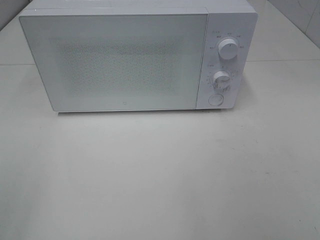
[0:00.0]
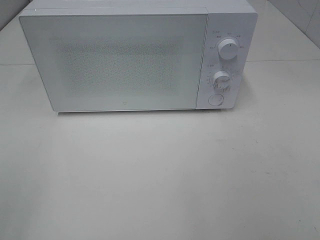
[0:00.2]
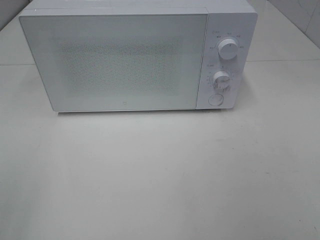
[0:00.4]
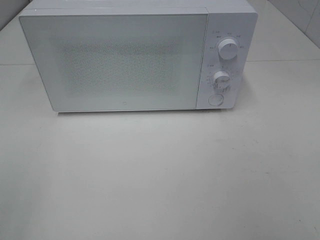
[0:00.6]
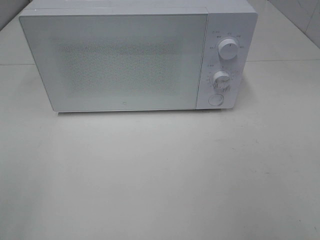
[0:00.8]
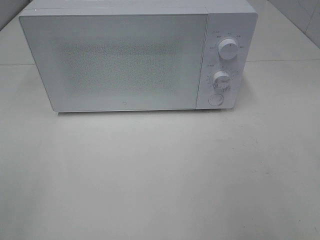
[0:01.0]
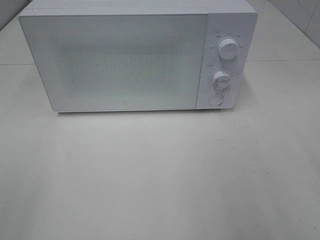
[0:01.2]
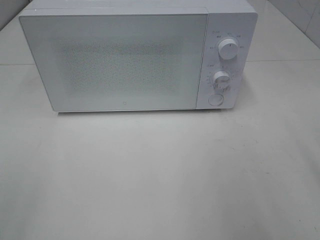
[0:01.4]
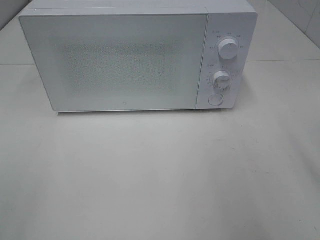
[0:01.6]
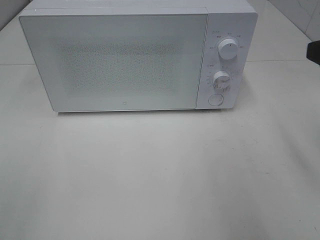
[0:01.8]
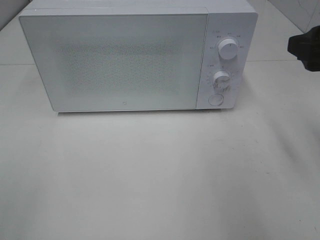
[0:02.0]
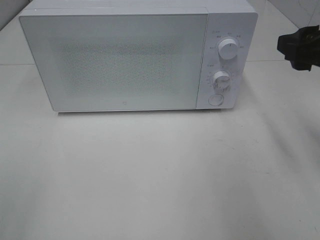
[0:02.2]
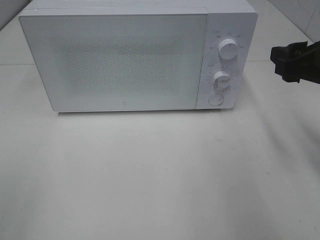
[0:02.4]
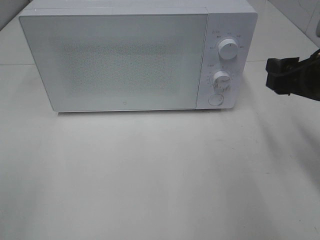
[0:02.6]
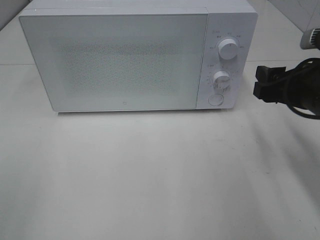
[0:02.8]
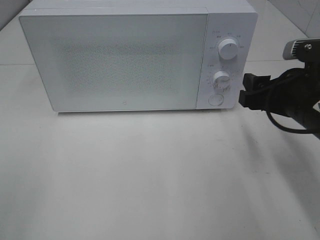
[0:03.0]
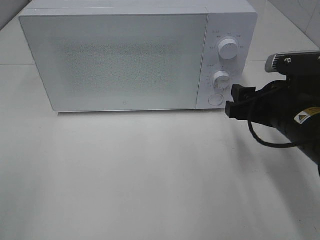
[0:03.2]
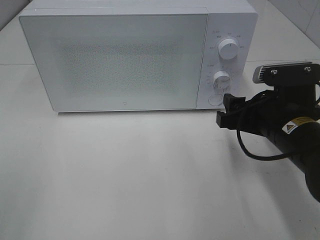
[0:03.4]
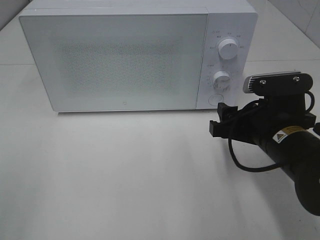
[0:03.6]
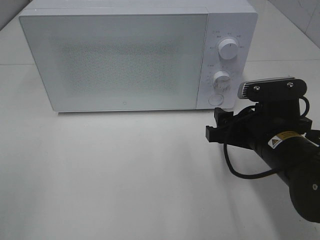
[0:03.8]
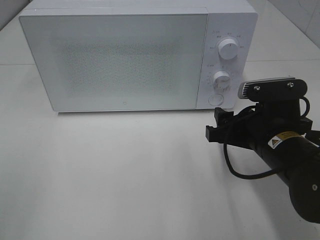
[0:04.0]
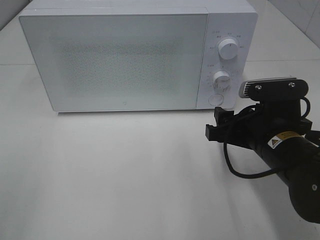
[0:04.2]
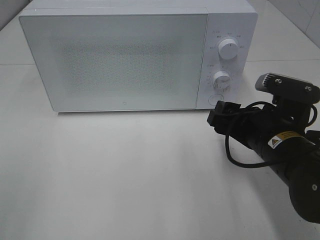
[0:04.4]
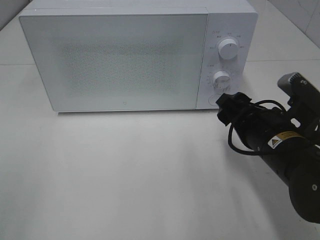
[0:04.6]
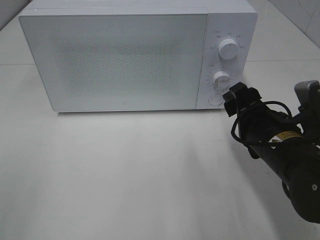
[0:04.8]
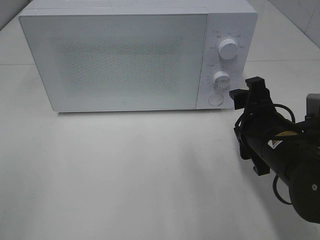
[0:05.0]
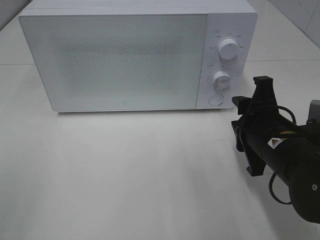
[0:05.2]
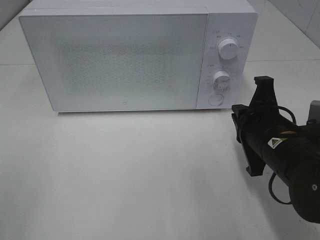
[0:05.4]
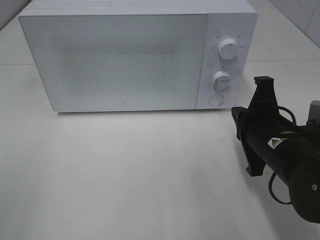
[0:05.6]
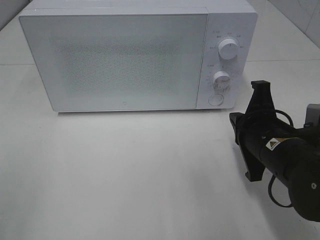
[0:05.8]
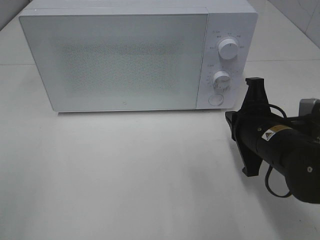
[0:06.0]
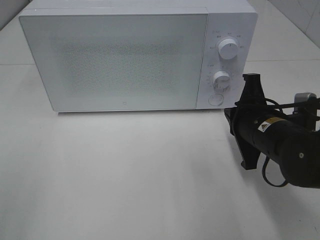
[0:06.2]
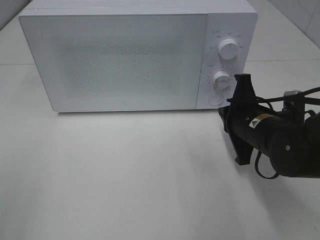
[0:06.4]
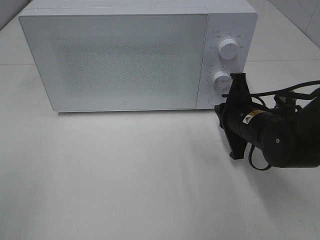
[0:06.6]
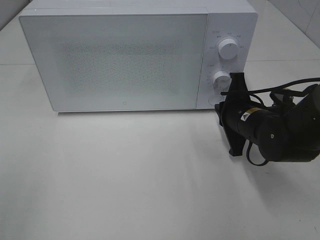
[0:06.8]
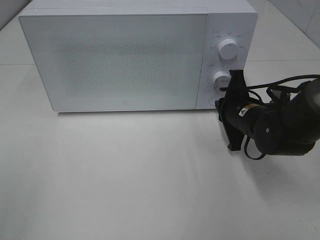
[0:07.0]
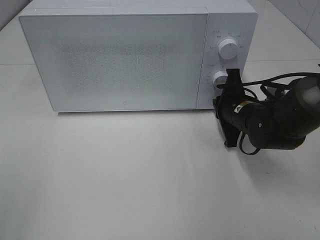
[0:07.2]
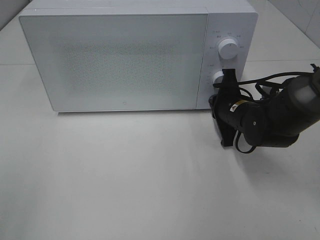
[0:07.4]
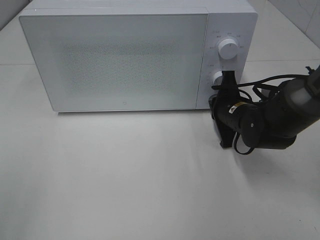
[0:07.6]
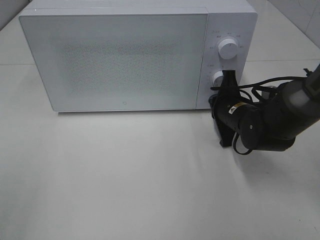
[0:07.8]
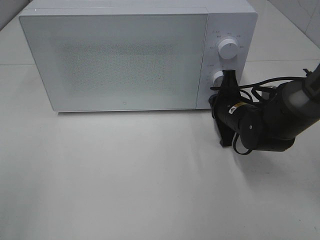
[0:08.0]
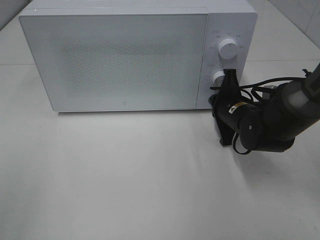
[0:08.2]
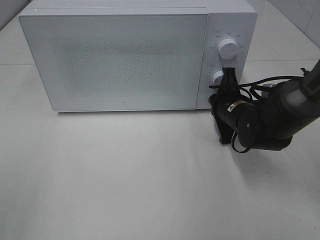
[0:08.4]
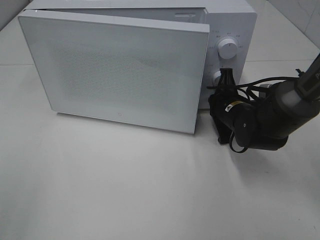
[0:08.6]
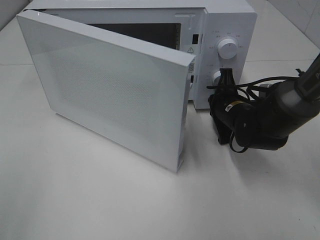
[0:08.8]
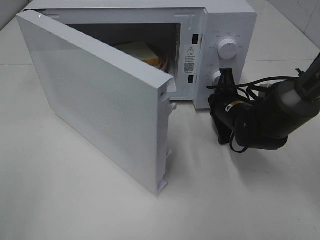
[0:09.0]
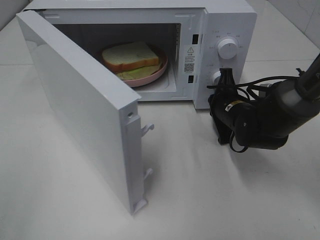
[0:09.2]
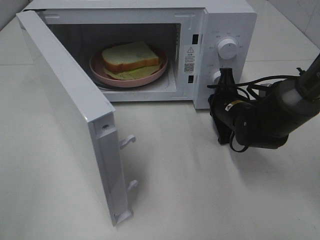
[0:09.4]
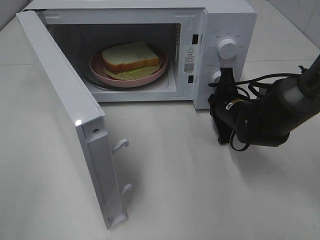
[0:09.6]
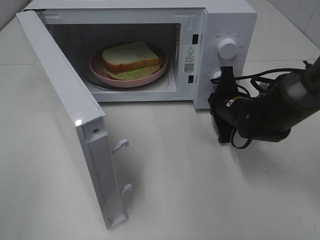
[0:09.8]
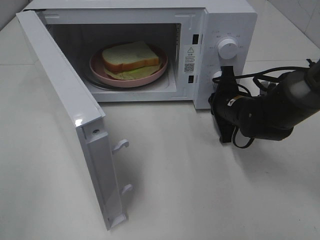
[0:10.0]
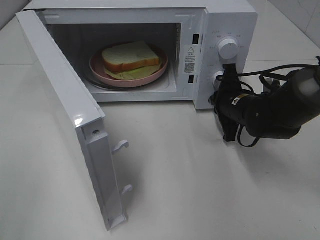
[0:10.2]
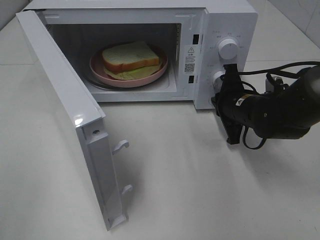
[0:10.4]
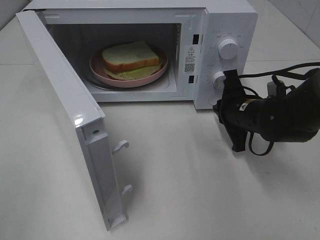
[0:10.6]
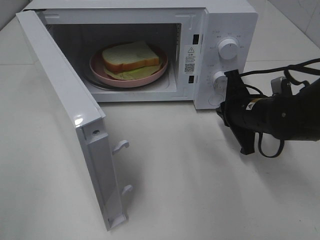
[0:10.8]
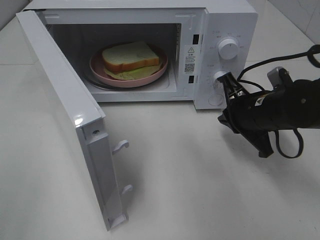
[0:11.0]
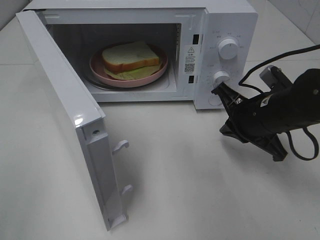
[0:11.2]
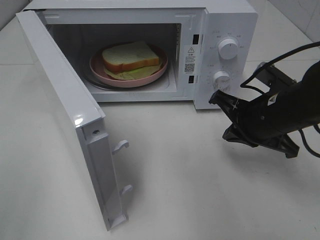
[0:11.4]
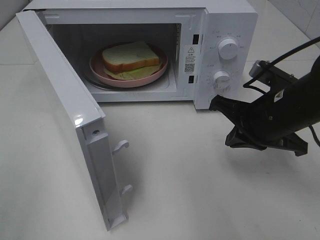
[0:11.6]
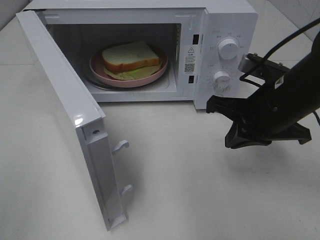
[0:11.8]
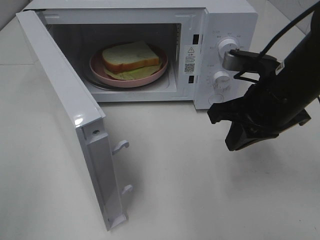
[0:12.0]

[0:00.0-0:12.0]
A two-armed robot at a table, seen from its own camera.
Task of the whole recording: Heat Sandwich.
Step, 0:00.0 to 0:10.8: Right hand: press the switch.
0:01.6 to 0:03.0: The right gripper travels downward, forward and to the left by roughly 15 cm.
0:03.0 to 0:04.4: The right gripper changes place by approximately 5 cm.
0:04.4 to 0:06.0: The right gripper closes its fingers.
0:06.0 to 0:07.6: The right gripper goes roughly 15 cm forward and downward.
0:10.4 to 0:12.0: The right gripper travels upward and backward by roughly 15 cm.

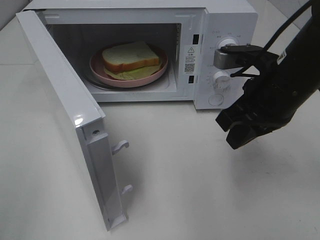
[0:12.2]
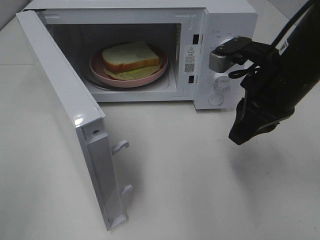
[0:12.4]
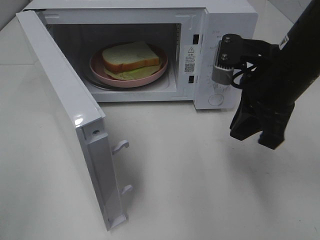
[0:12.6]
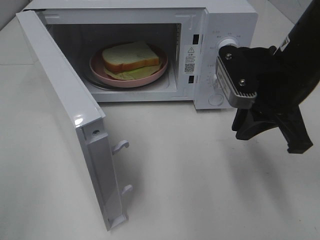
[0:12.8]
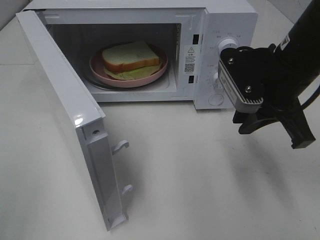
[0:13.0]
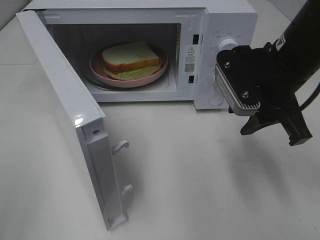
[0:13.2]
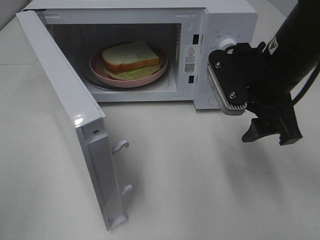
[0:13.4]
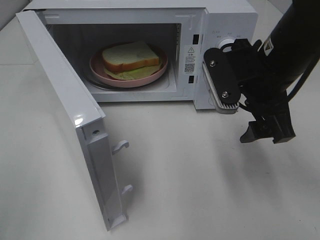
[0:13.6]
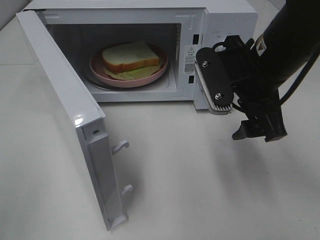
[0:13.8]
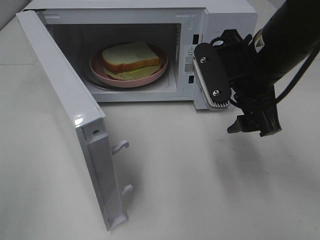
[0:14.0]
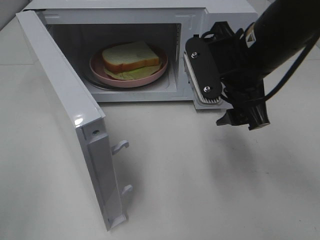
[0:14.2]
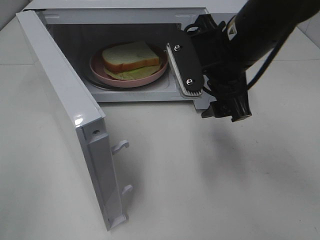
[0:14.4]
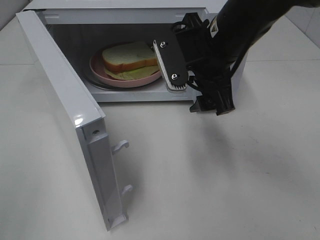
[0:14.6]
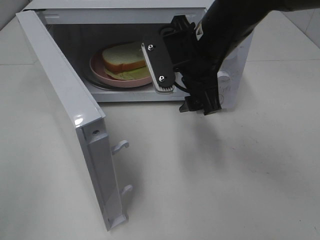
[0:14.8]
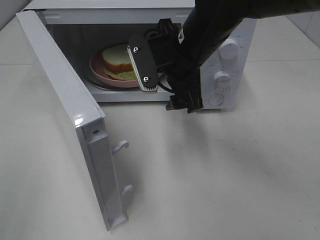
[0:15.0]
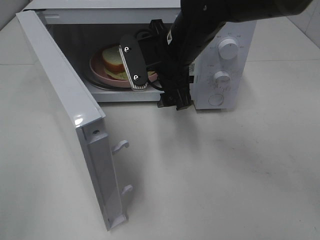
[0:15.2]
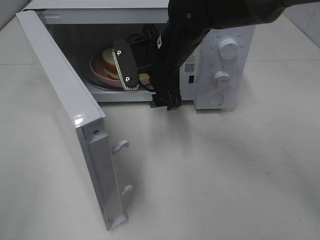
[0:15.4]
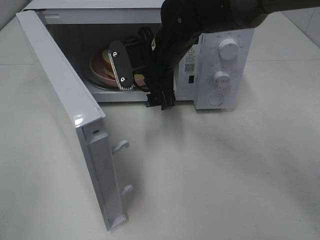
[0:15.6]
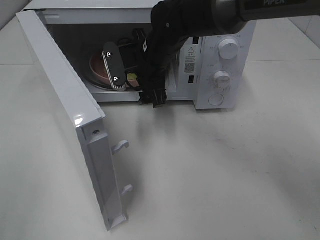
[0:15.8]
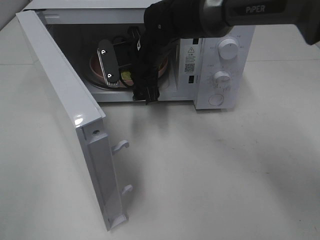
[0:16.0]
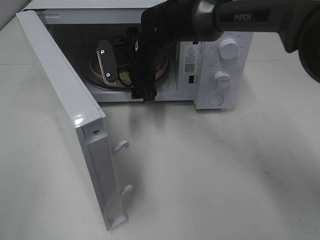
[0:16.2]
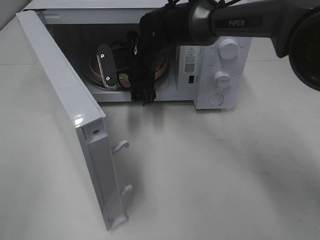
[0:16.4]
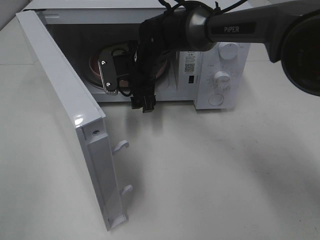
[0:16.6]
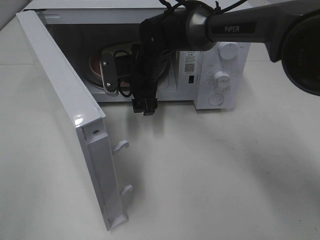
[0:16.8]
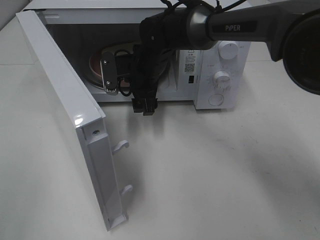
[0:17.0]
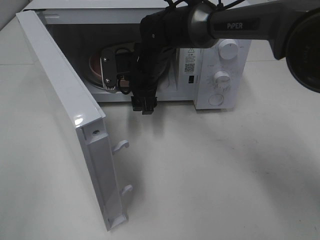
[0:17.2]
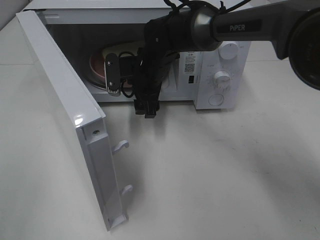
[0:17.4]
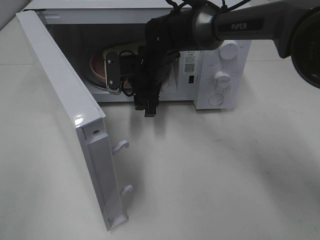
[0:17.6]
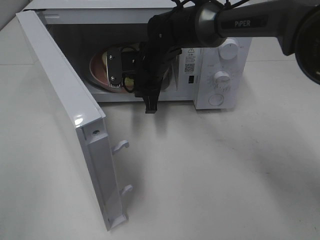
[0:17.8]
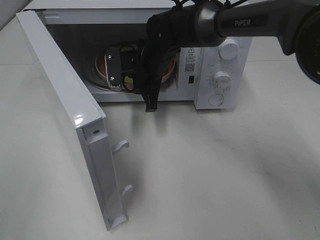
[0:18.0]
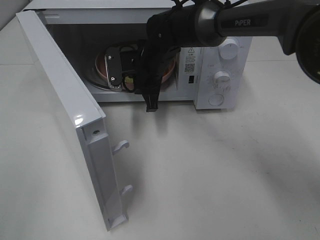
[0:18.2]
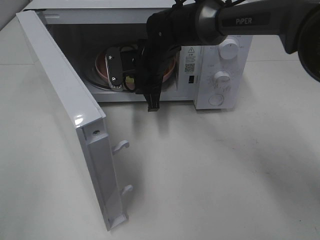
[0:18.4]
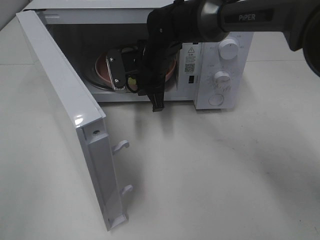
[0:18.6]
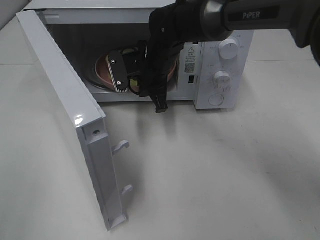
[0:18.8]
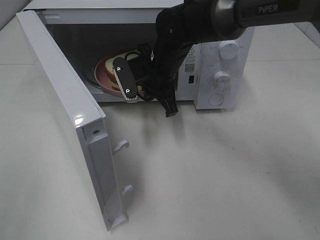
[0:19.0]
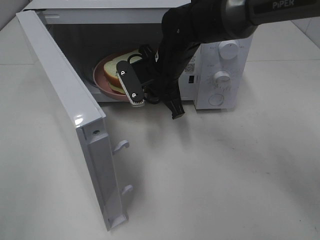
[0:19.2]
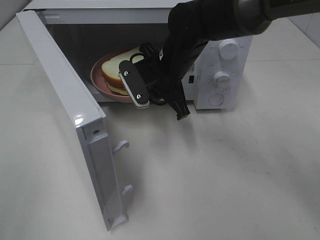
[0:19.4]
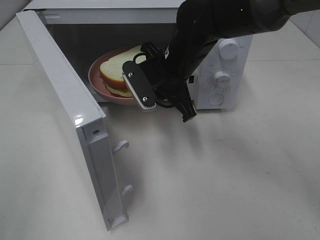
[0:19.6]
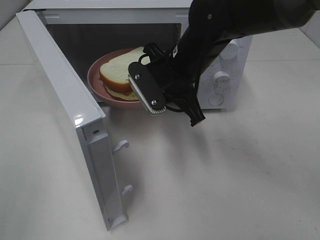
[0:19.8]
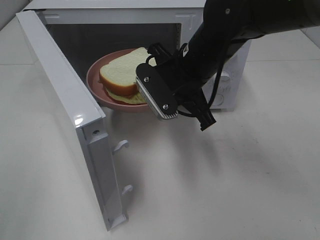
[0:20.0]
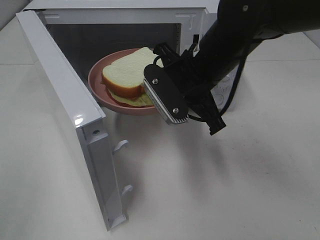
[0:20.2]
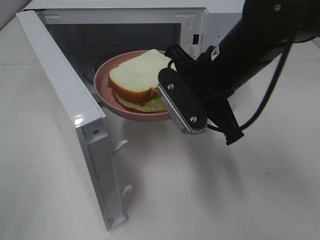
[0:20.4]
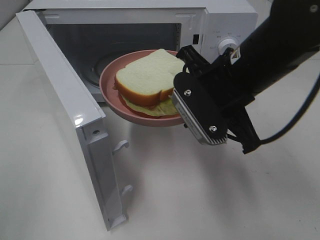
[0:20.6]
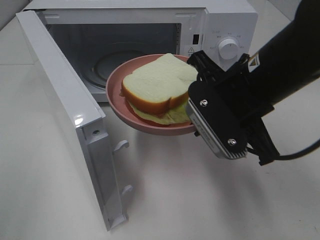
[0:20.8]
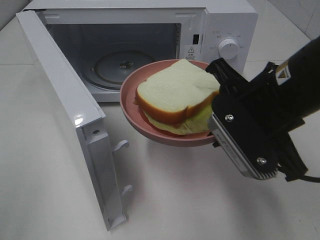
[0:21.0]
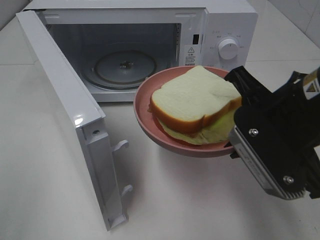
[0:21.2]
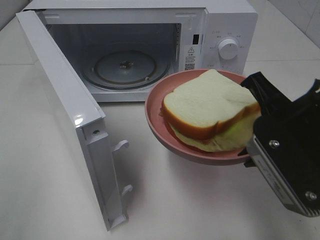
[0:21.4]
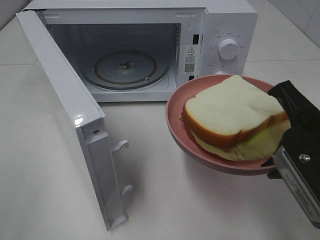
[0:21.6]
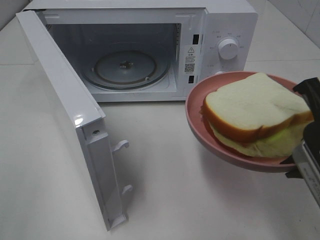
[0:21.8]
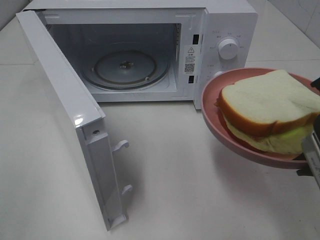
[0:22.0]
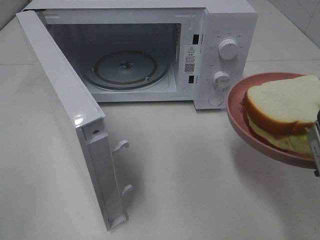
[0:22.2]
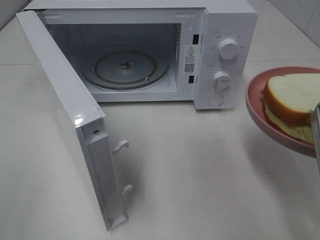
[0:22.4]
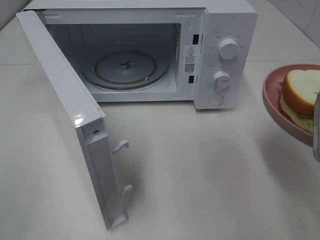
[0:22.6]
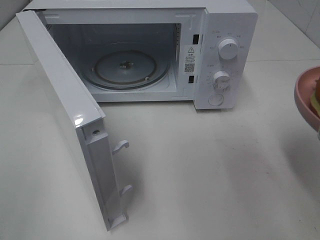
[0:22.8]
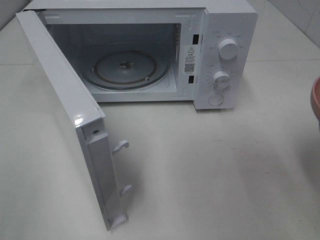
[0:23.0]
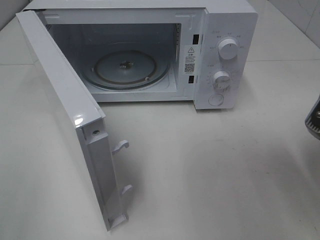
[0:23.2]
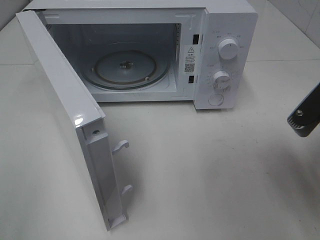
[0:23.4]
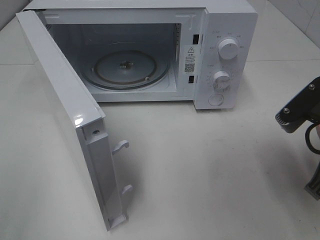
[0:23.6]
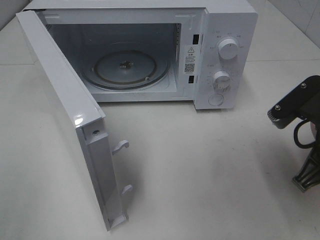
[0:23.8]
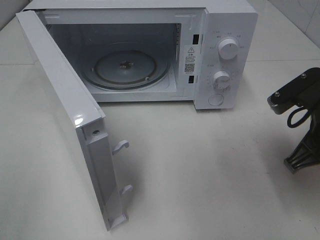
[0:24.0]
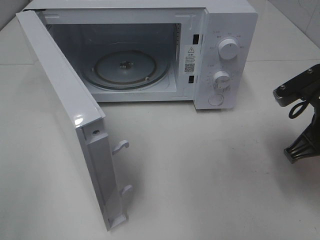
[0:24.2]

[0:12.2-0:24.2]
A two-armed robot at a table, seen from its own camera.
Task of the whole recording: Heat Sandwich.
Step, 0:12.2 to 0:17.8: Right hand: grab the plate with the sandwich.
0:12.2 to 0:13.8: The right gripper opens up.
0:13.8 to 0:15.2: The right gripper heads to the left and forward, covering roughly 15 cm.
0:15.2 to 0:16.6: The right gripper heads forward, downward and to the left, covering about 10 cm.
0:16.6 to 0:18.2: The right gripper closes its fingers.
0:18.2 to 0:19.8: The right gripper is displaced backward and to the right by some 10 cm.
0:19.8 to 0:21.2: The right gripper travels backward and to the right by approximately 20 cm.
0:21.2 to 0:22.6: The right gripper goes approximately 5 cm to the right.
0:22.6 to 0:24.2: The right gripper heads forward and downward, covering some 10 cm.
